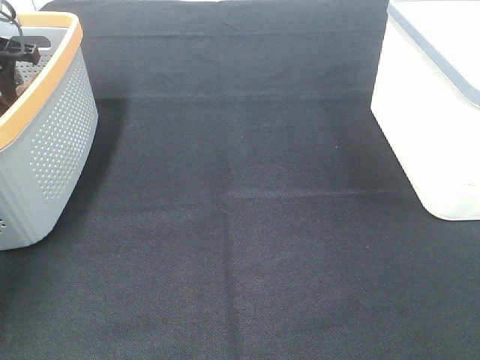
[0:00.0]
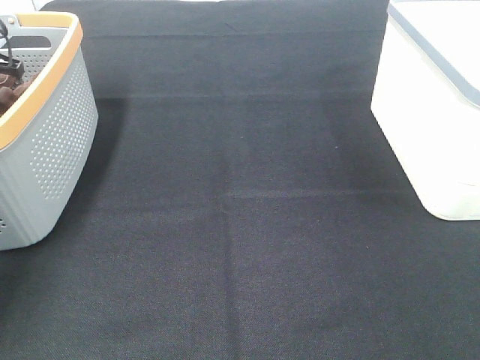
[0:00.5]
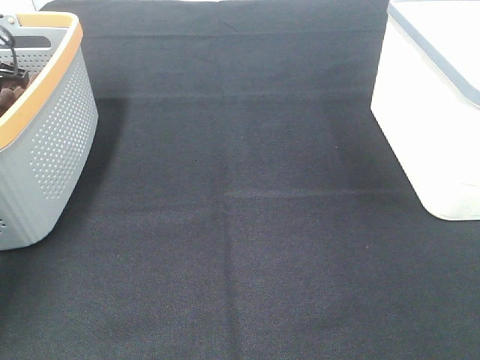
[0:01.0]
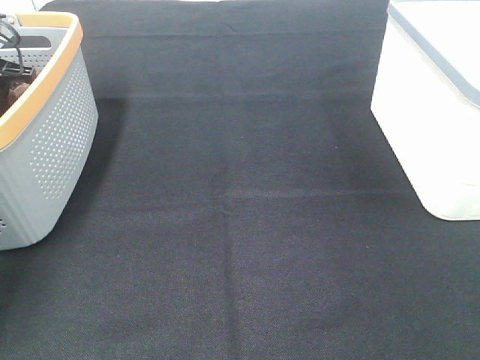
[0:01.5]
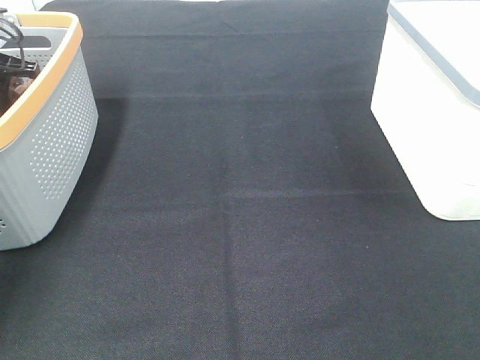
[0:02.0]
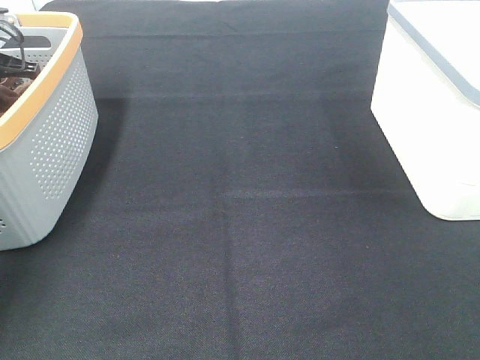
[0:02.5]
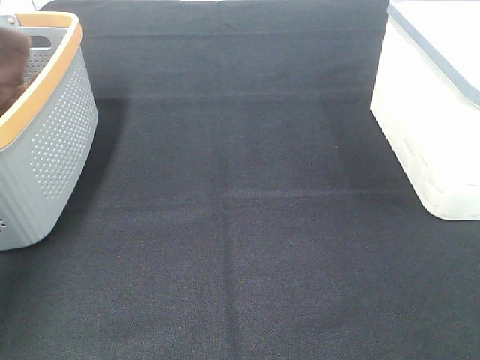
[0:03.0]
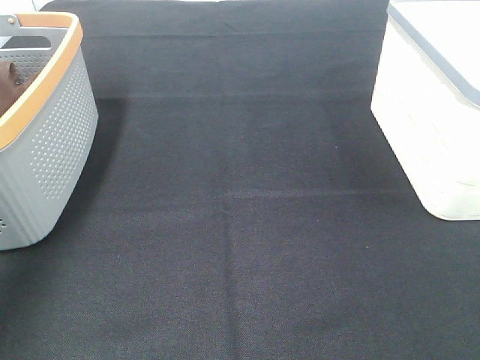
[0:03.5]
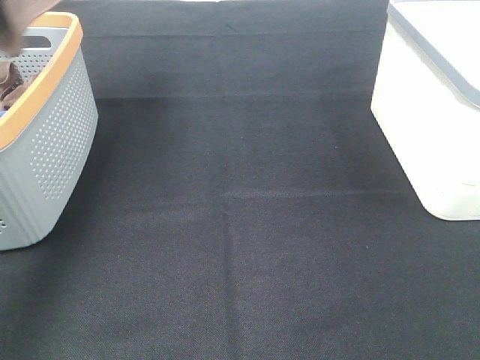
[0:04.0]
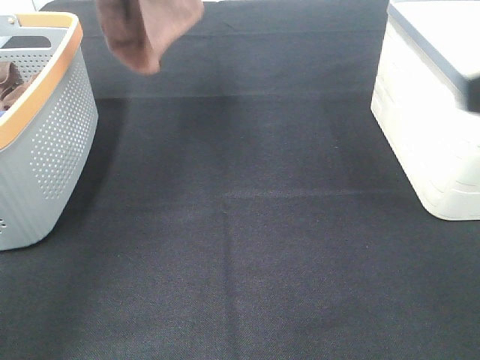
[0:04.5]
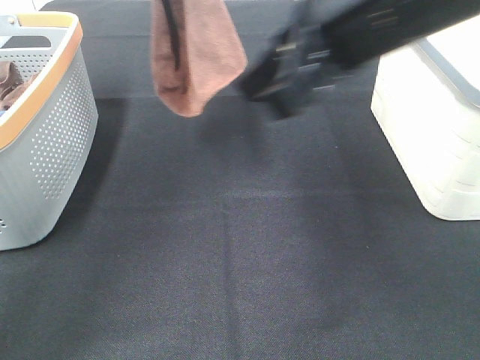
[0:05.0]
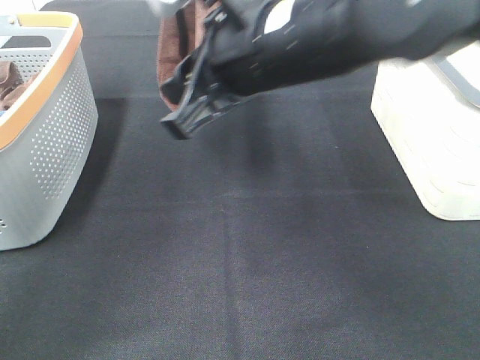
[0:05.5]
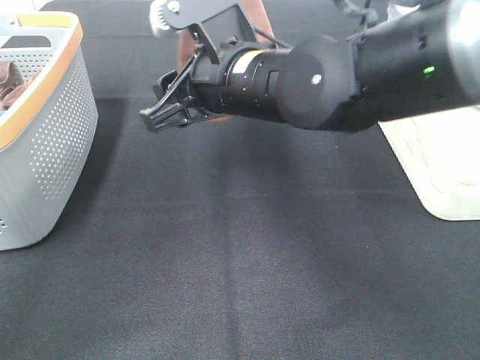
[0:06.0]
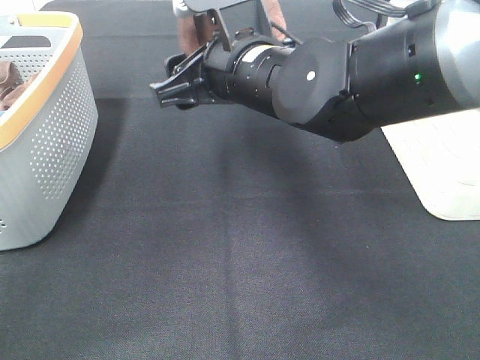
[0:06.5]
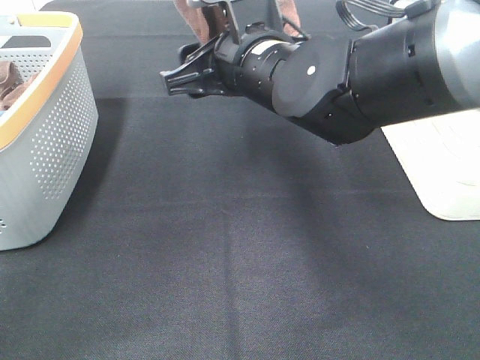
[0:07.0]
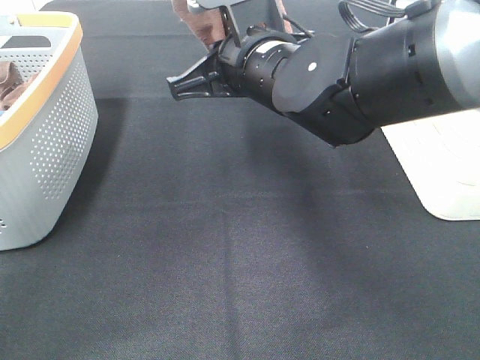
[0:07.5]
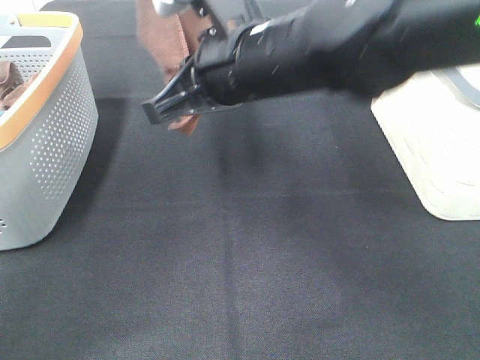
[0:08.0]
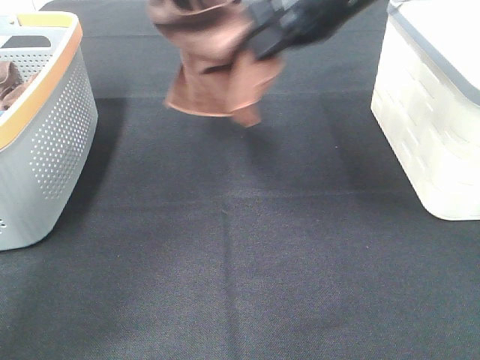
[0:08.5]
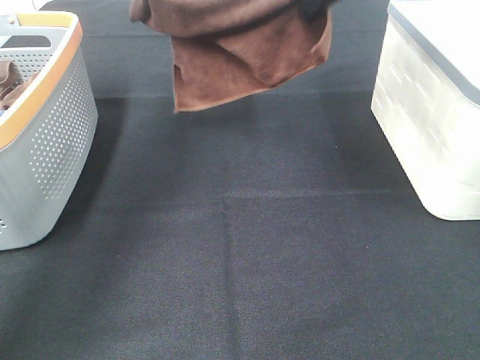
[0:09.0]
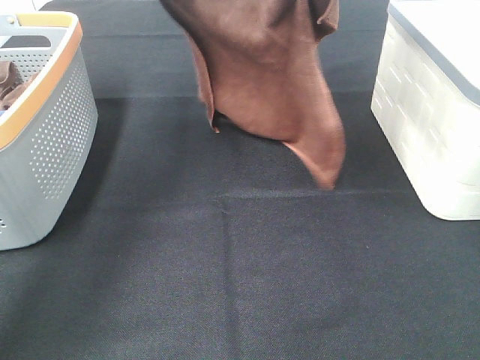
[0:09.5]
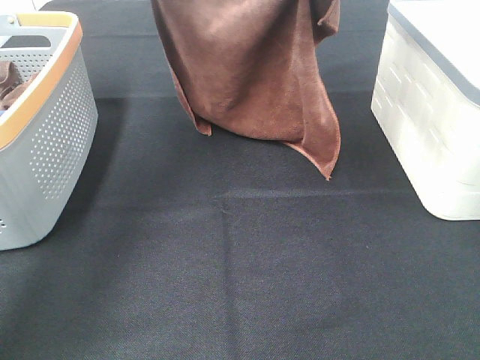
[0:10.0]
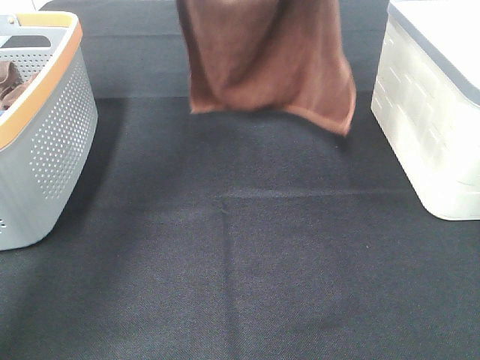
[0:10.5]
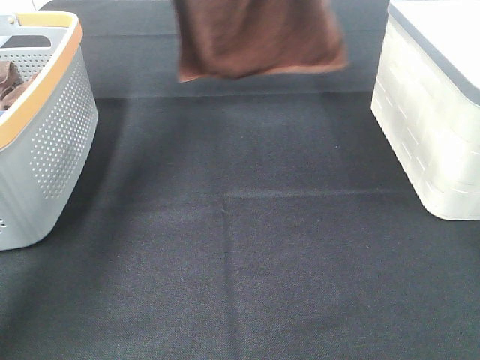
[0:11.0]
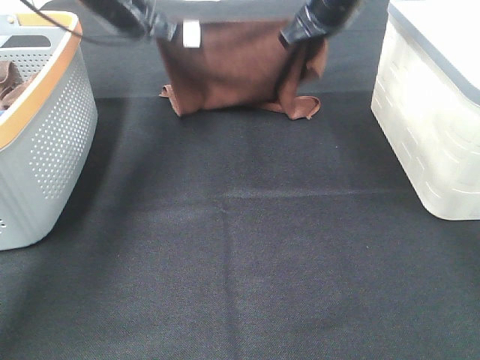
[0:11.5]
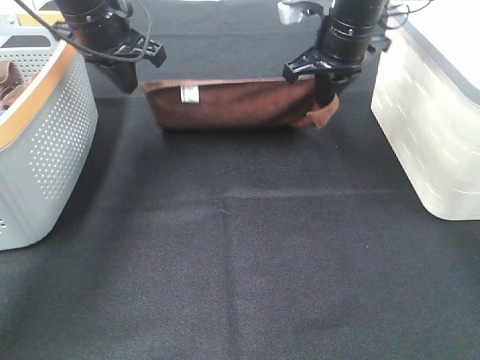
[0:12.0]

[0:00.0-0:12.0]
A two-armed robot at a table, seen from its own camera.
Task of the whole recording: Remove the towel and place it.
Step, 0:01.5 to 0:06.0: Right hand: grab a corner of the brown towel and straighten it.
Step, 0:06.5 to 0:08.0: Left hand: spread the brown towel flat on the table.
Step, 0:06.5 to 0:08.0: Right hand: spread the brown towel flat on the table.
0:02.0 to 0:04.0: The left gripper shifts roughly 35 cm upward and backward, and closes up.
0:04.0 to 0:06.0: The left gripper is displaced to the right and downward by some 15 cm, while the right gripper is displaced forward and to the left by about 40 cm.
0:06.0 to 0:08.0: The right gripper closes.
0:08.0 to 0:10.0: The right gripper moves forward, upward and to the right, approximately 20 cm, while the left gripper moves downward and forward, approximately 10 cm, and opens.
0:10.0 to 0:12.0: The left gripper goes roughly 10 cm downward, and closes its fingers; the right gripper is displaced downward by roughly 15 cm.

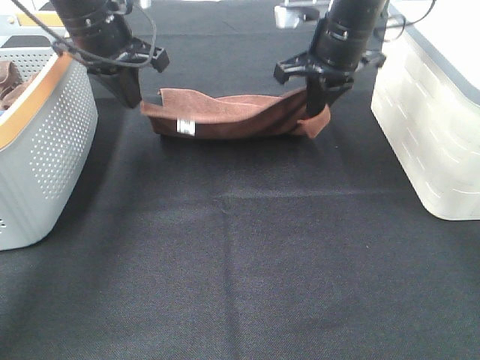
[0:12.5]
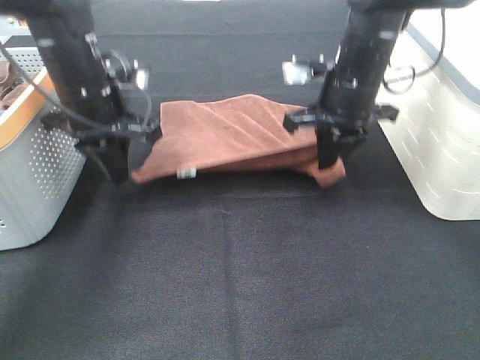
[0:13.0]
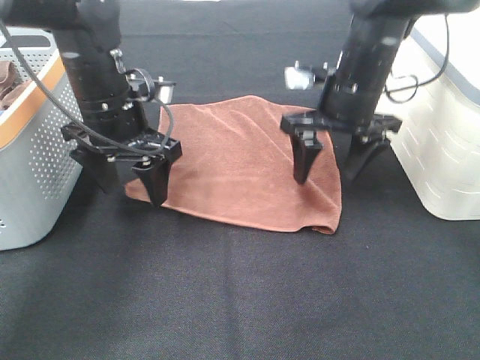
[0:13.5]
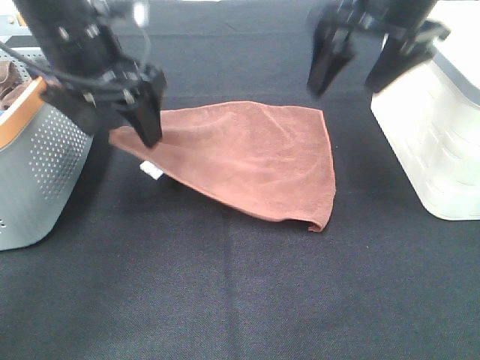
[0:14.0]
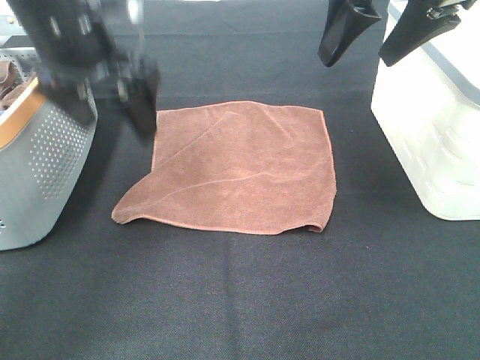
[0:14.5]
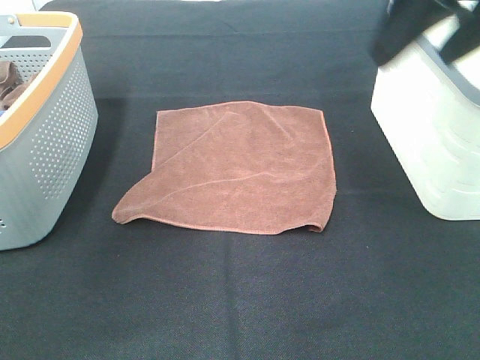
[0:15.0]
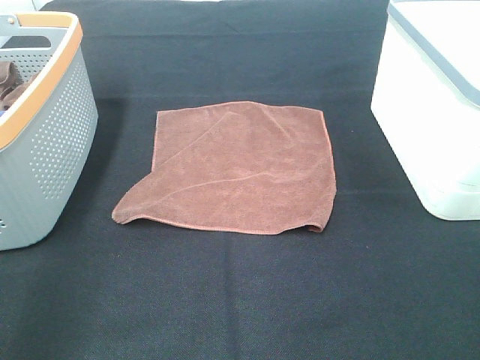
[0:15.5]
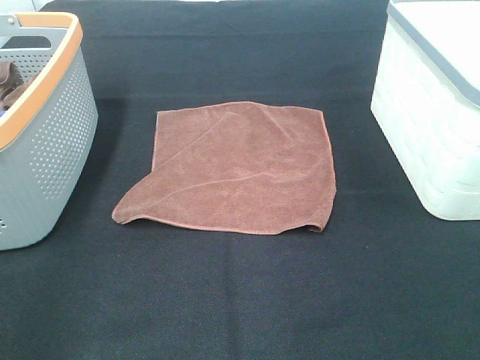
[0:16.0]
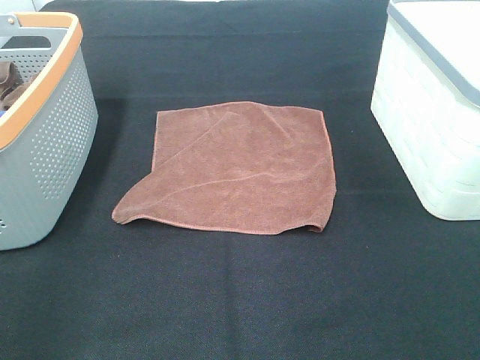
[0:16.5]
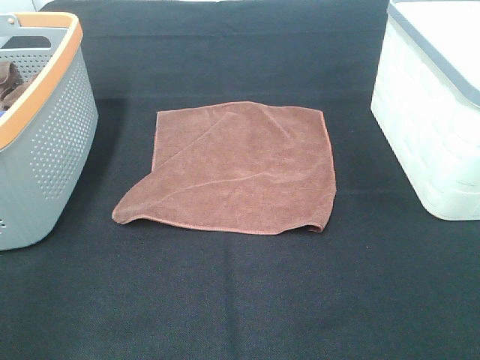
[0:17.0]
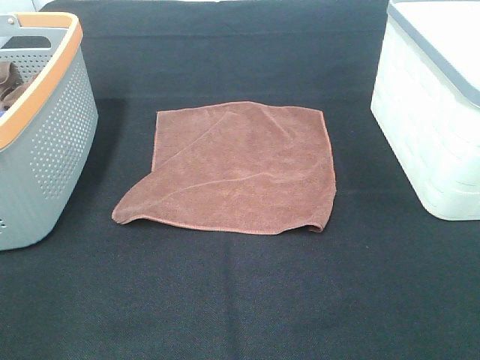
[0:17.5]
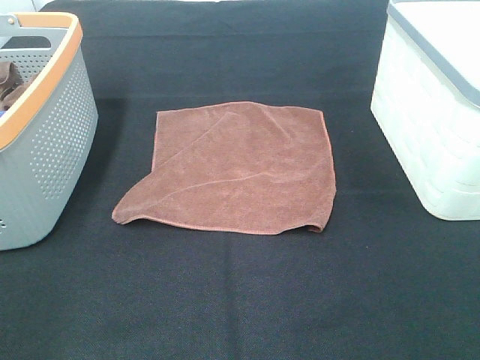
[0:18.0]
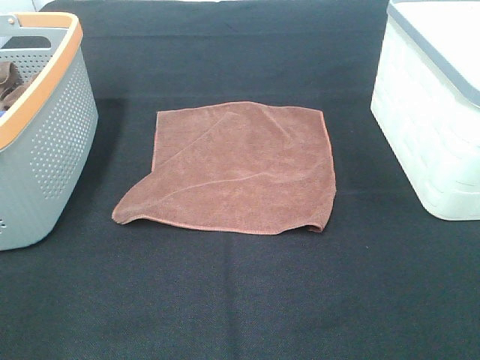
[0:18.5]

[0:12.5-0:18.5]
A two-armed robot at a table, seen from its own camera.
Task of the whole recording: Remove the towel and place it.
0:12.5 to 0:14.5: The right gripper moves upward and backward, roughly 15 cm, and opens. Meanwhile the left gripper goes roughly 10 cm backward and upward, and opens up.
0:14.5 to 0:16.5: The right gripper heads backward, covering about 30 cm. The left gripper travels backward and to the left by about 35 cm.

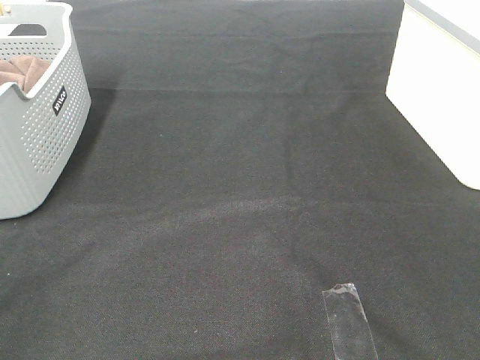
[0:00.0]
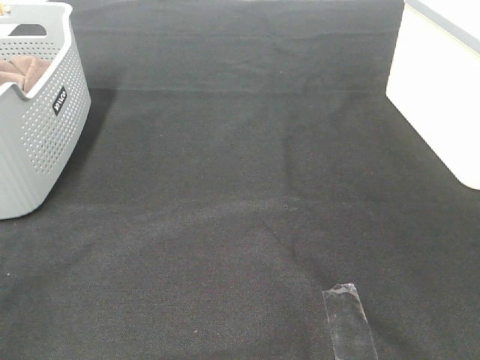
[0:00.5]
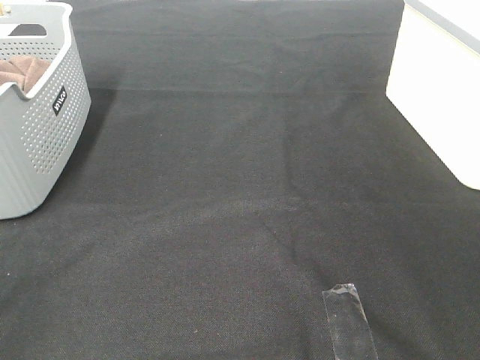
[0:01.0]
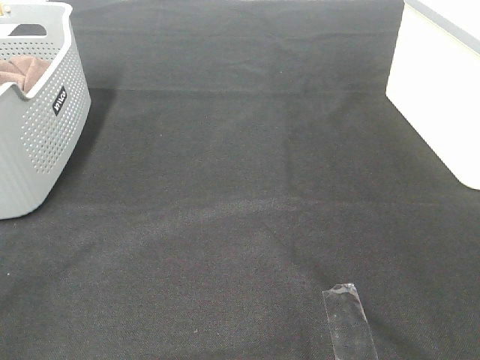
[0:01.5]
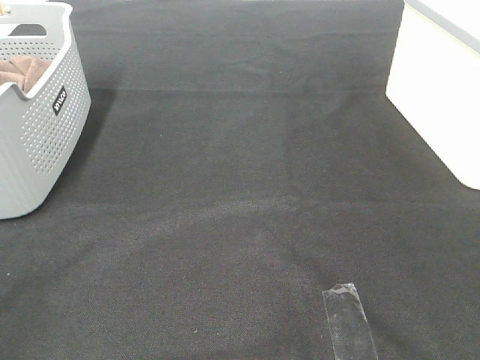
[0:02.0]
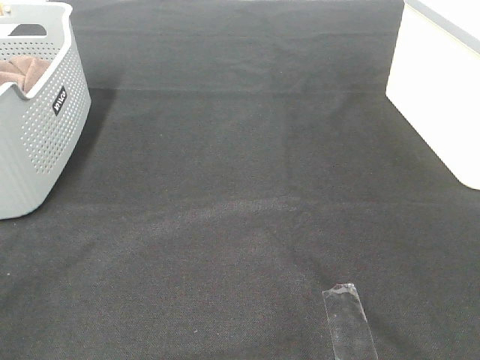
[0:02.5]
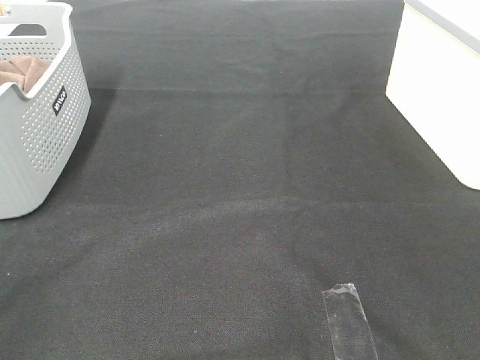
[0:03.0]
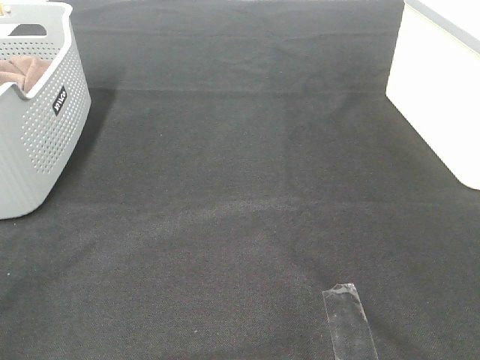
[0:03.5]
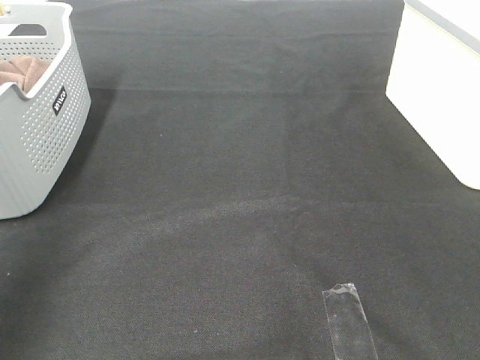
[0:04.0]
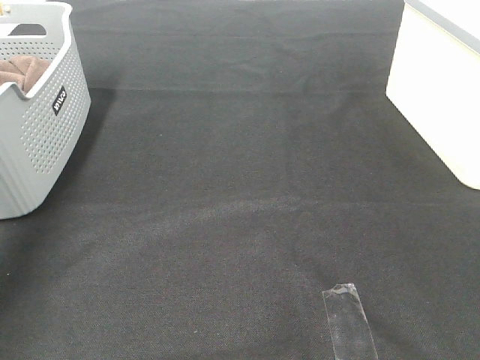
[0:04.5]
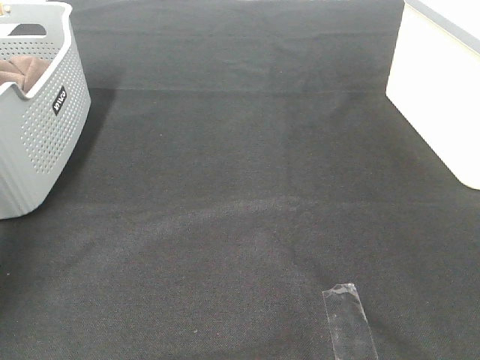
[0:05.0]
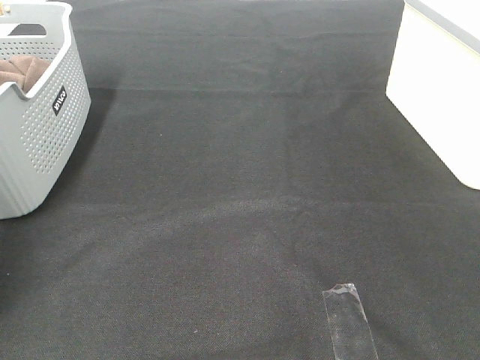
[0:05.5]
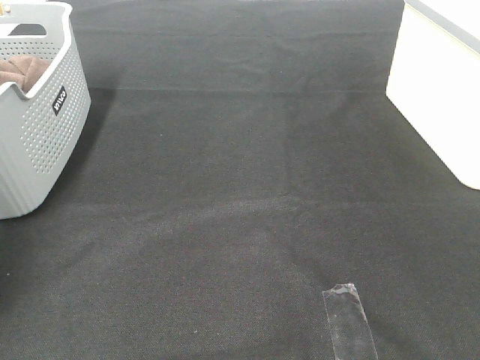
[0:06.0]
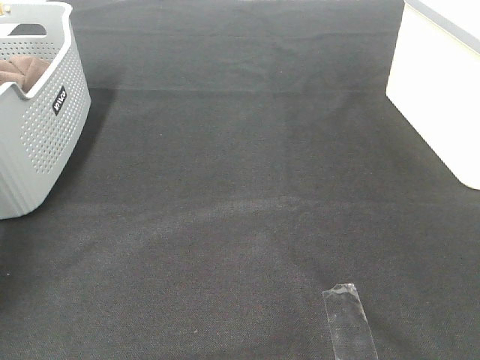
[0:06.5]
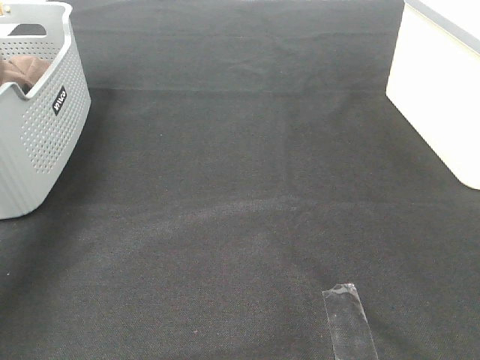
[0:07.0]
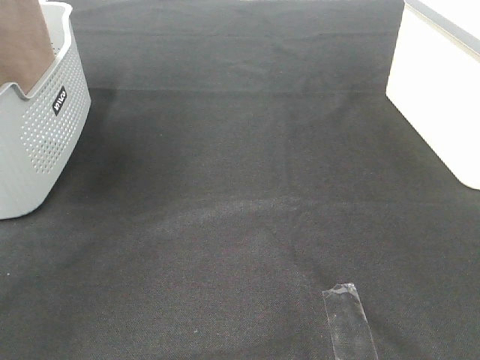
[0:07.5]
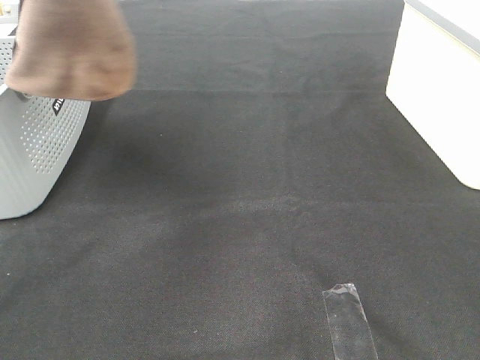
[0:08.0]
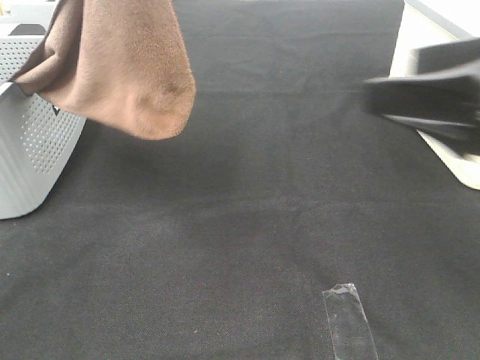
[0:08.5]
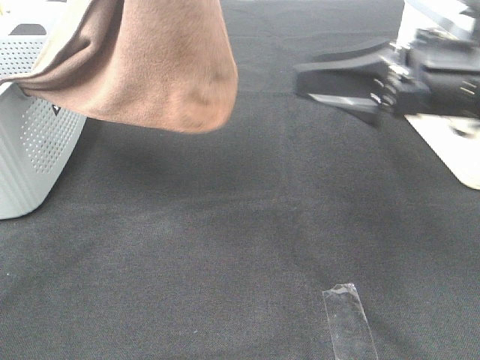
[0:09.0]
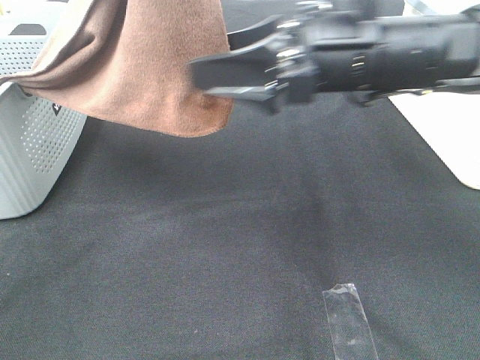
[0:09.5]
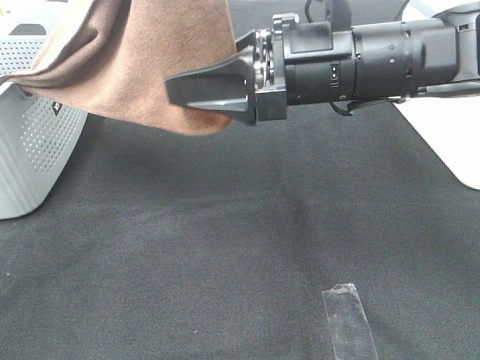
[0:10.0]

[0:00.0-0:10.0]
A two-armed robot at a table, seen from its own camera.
Task of the whole recording: Remove the towel and place it.
0:00.0 to 0:02.0: Both grippers stay put.
0:02.0 to 0:04.0: The left gripper heads forward and upward, covering about 20 cm.
0:04.0 to 0:06.0: The left gripper goes some 35 cm forward and downward, and closes up.
0:06.0 to 0:08.0: The left gripper moves upward, to the right and backward, roughly 40 cm.
0:08.0 to 0:10.0: The left gripper ends up approximately 5 cm from where it was. The right gripper travels forward and to the left by roughly 30 cm, and closes up.
